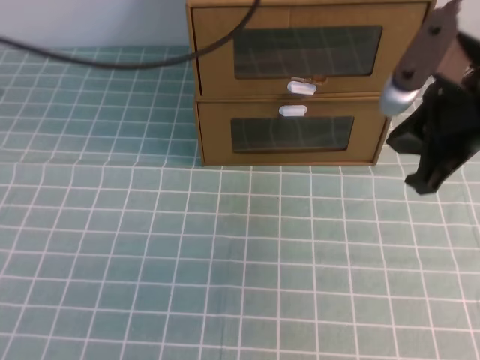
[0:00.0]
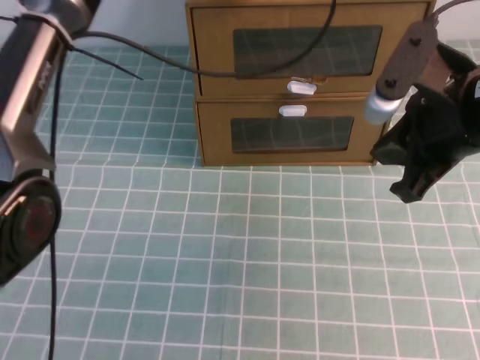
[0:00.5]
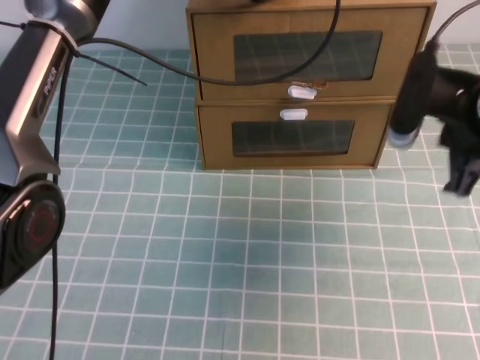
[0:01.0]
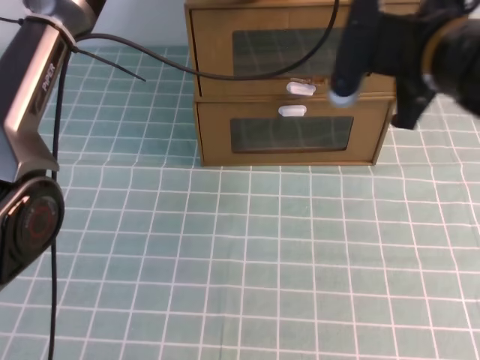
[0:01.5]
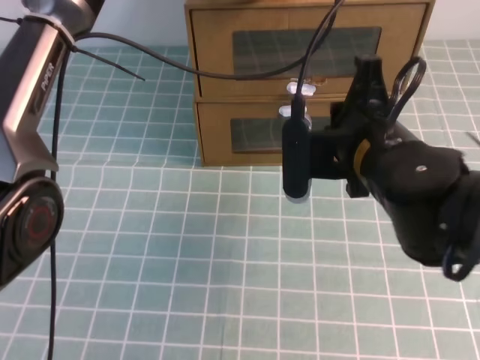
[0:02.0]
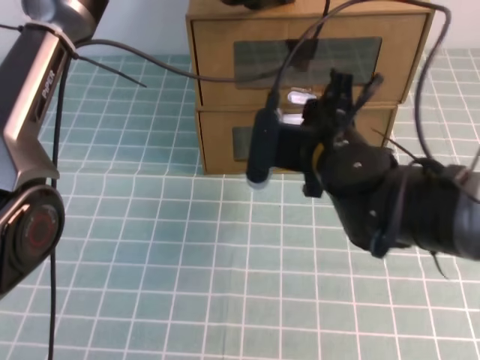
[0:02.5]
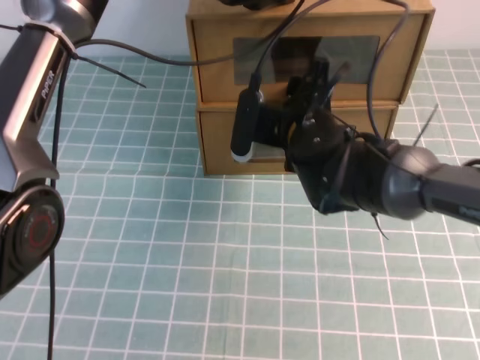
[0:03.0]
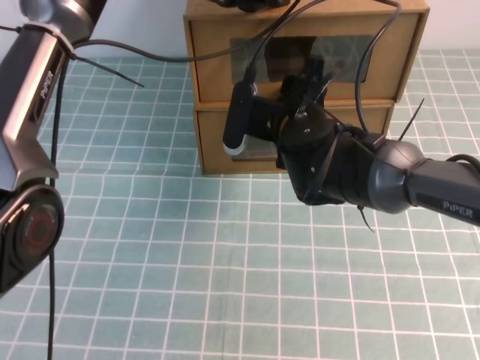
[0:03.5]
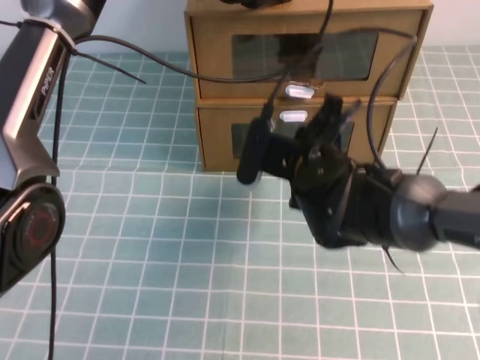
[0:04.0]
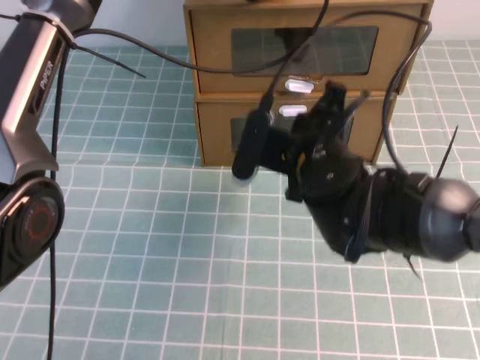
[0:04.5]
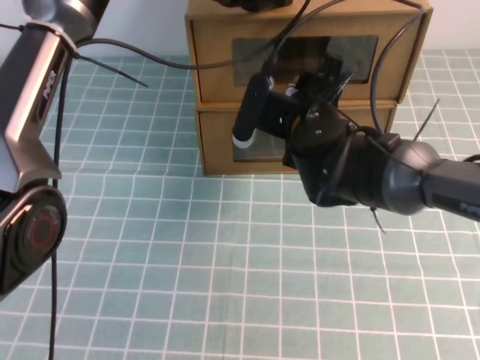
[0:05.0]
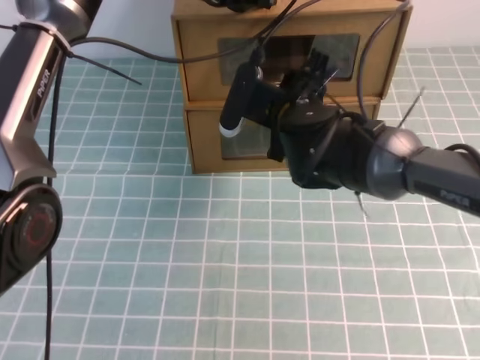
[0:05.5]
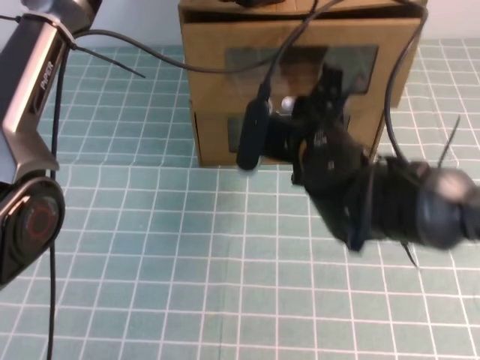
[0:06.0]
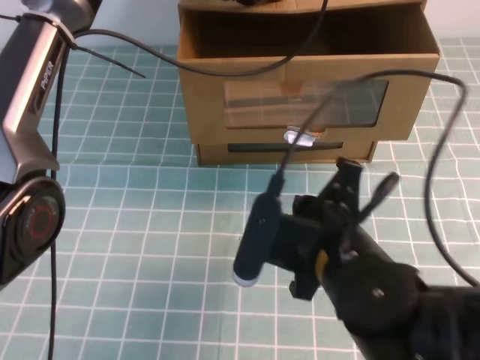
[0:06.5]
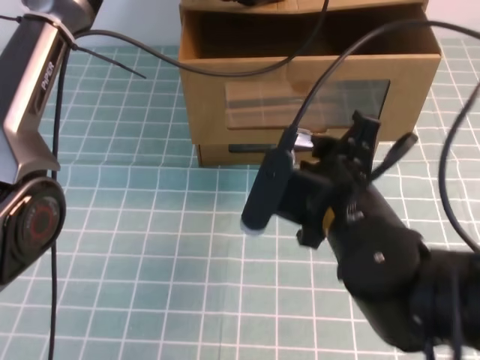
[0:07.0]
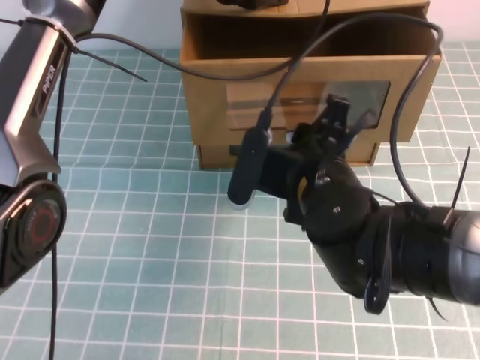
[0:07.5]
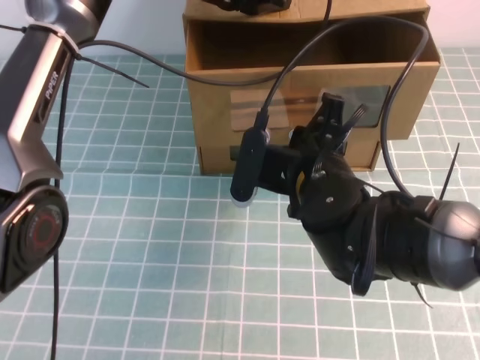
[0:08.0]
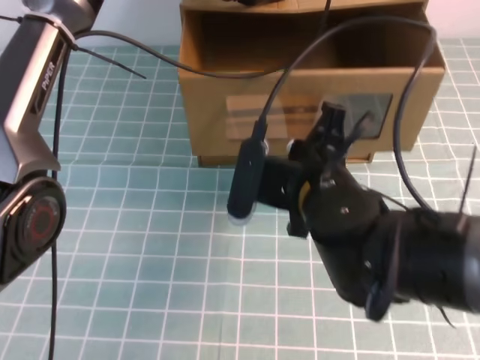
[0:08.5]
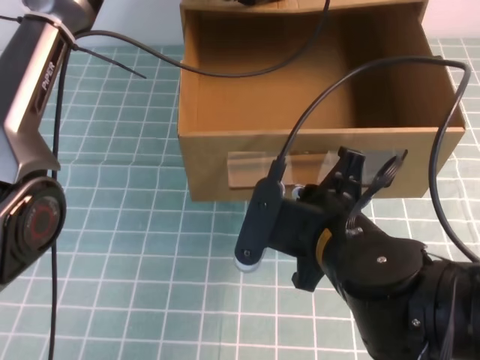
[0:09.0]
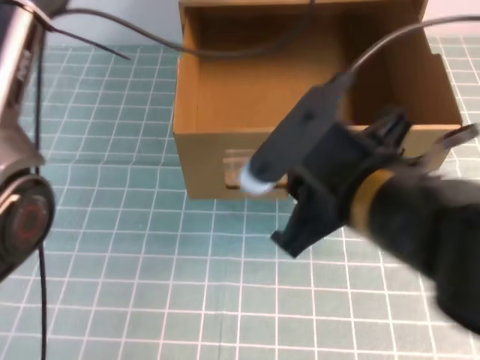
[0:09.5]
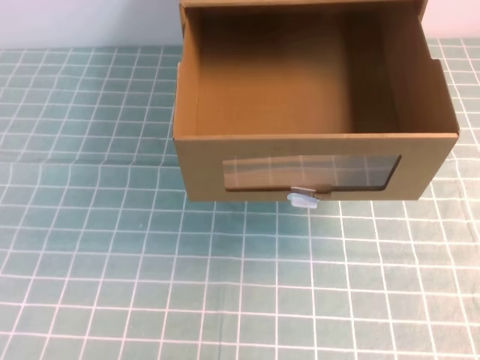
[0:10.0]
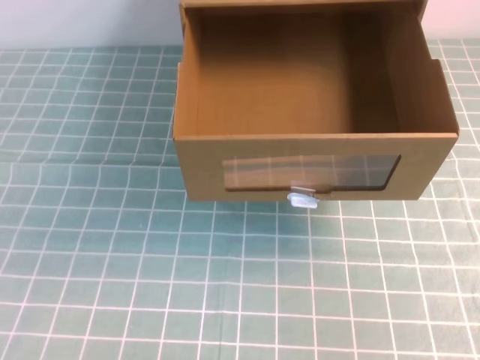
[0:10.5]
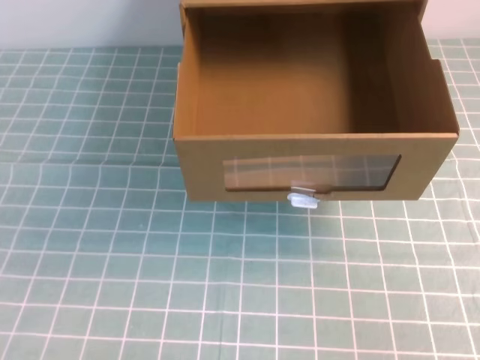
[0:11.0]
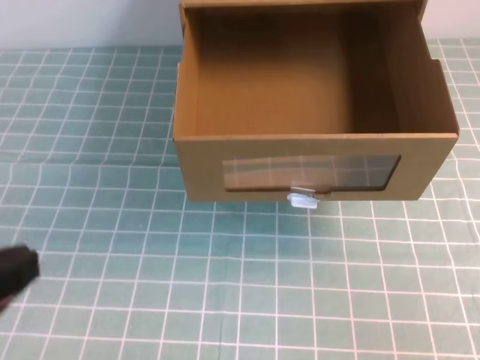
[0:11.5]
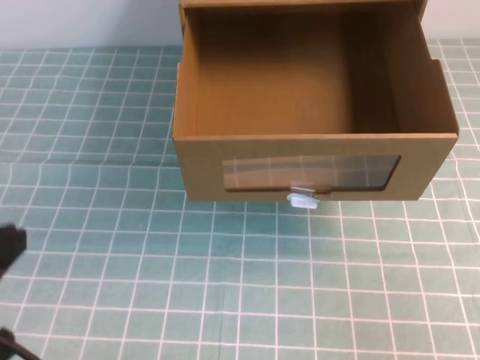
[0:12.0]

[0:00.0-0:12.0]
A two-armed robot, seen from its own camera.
Task of the whole recording: open the shoebox on the cyan tablecloth.
0:00.0 to 0:02.0: The left gripper goes approximately 15 cm to the right, forward and downward, while the right gripper shifts roughly 10 cm to the left and downward.
0:02.0 to 0:04.0: The right gripper goes about 10 cm downward and forward, and opens, then closes once more.
0:04.0 to 0:06.0: The right gripper moves roughly 5 cm forward and comes back, and opens and closes again.
0:06.0 to 0:08.0: The right gripper goes backward and returns, approximately 10 cm each way, and opens and closes again.
0:08.0 to 0:10.0: The left gripper shifts about 25 cm upward and backward. The right gripper goes about 30 cm upward, backward and to the right.
0:10.0 to 0:12.0: The right gripper shifts about 20 cm downward, to the right and backward, and closes its fingers. The left gripper goes about 35 cm downward, backward and to the left.
